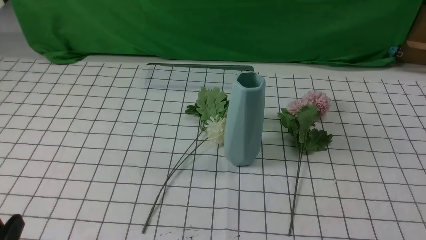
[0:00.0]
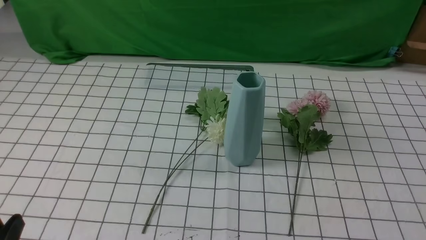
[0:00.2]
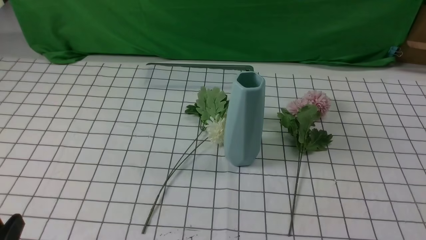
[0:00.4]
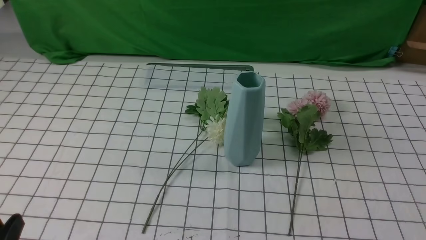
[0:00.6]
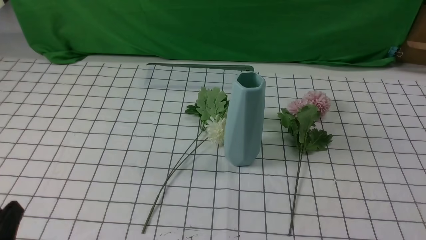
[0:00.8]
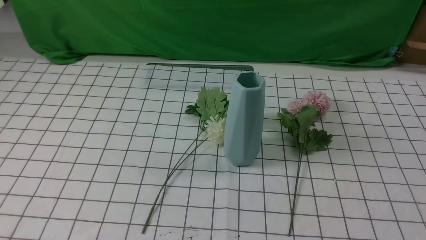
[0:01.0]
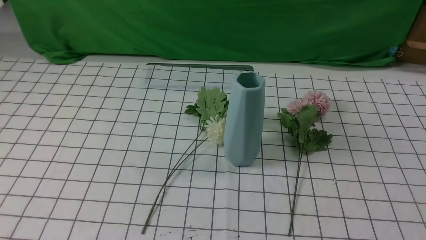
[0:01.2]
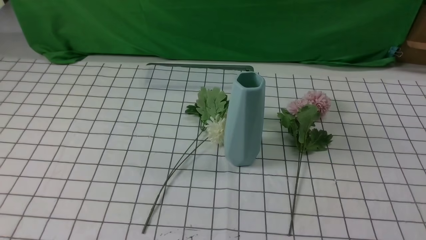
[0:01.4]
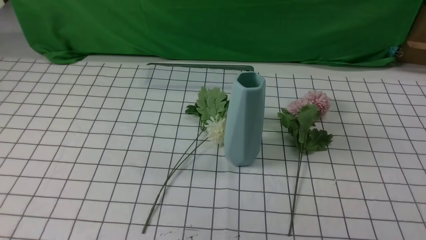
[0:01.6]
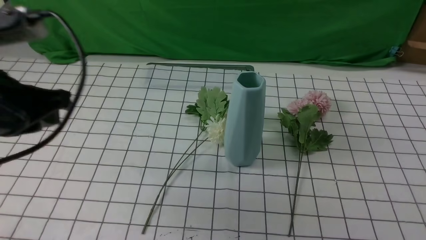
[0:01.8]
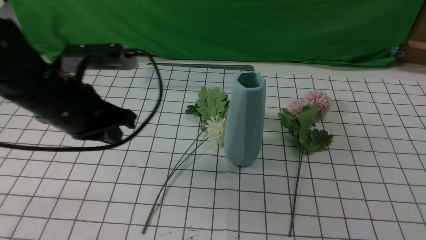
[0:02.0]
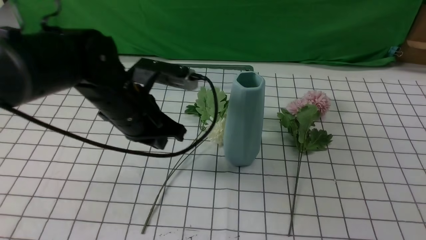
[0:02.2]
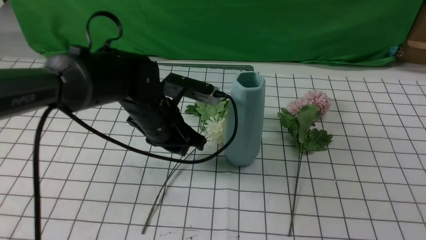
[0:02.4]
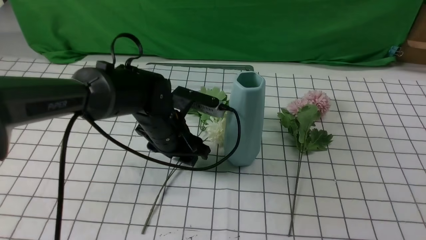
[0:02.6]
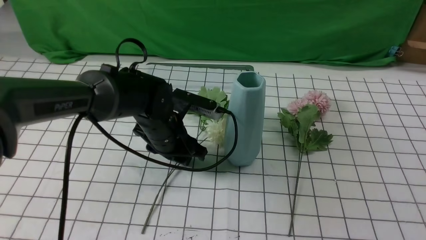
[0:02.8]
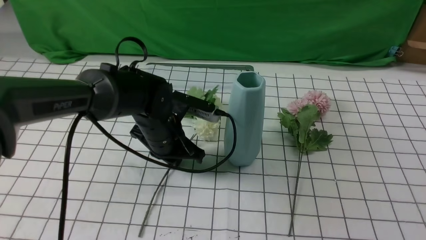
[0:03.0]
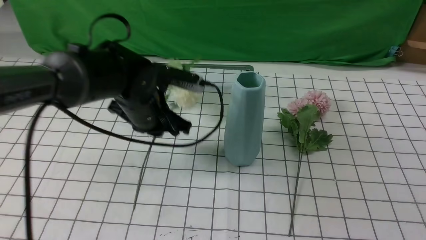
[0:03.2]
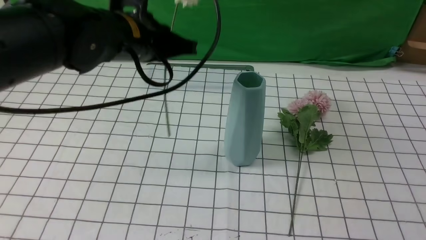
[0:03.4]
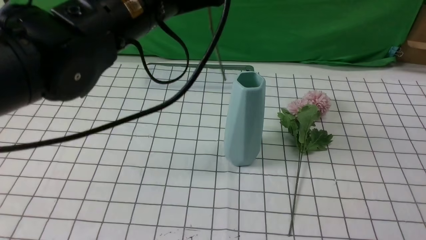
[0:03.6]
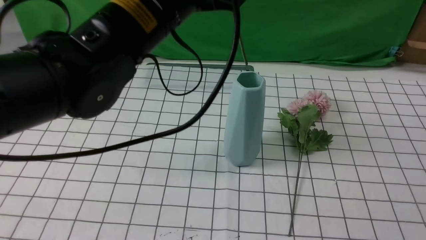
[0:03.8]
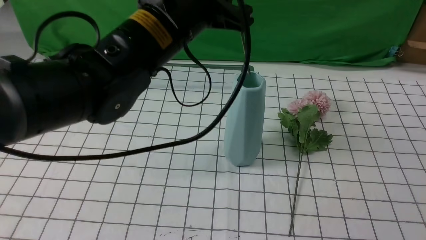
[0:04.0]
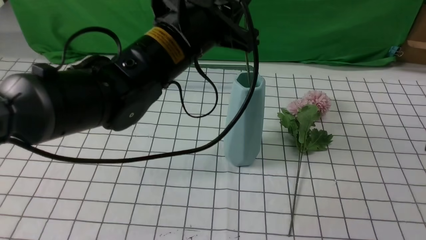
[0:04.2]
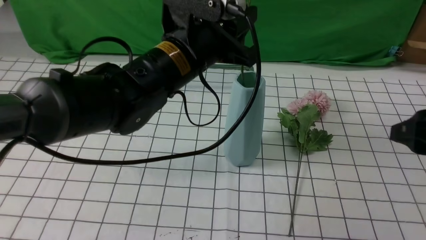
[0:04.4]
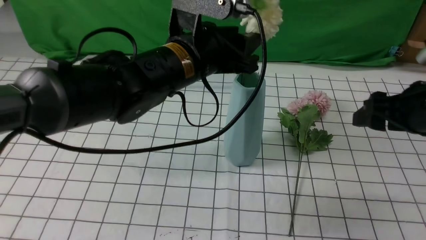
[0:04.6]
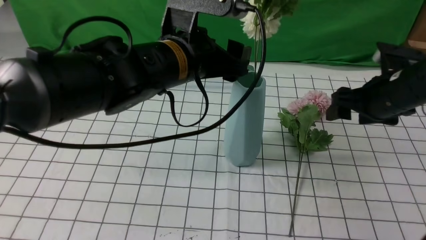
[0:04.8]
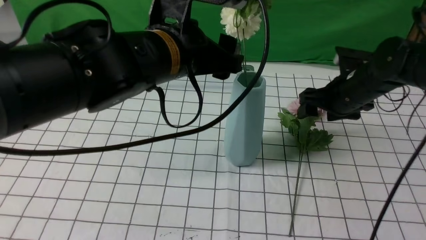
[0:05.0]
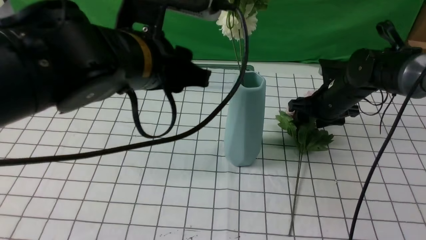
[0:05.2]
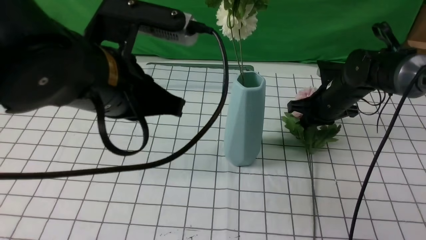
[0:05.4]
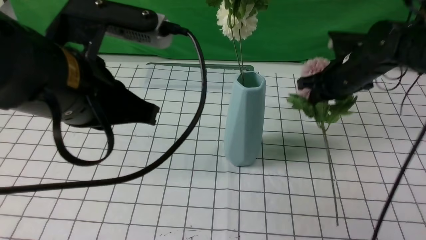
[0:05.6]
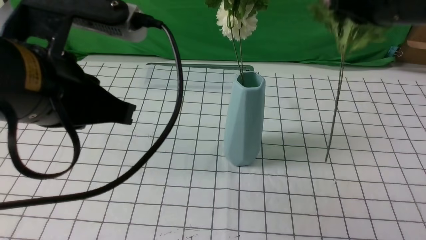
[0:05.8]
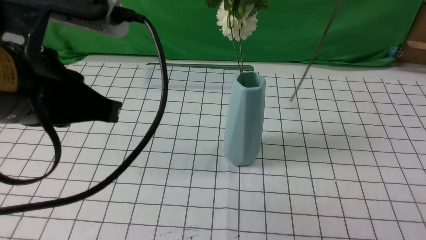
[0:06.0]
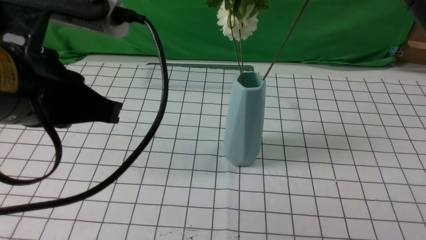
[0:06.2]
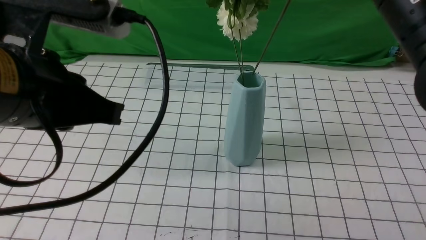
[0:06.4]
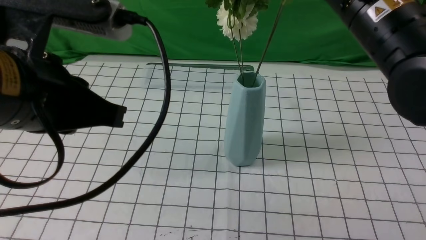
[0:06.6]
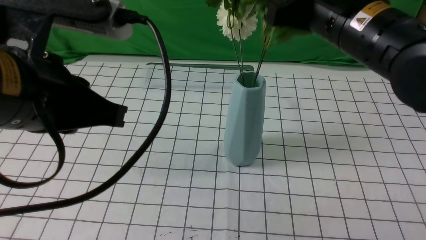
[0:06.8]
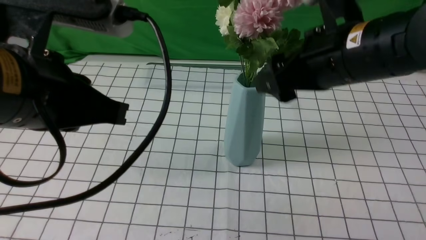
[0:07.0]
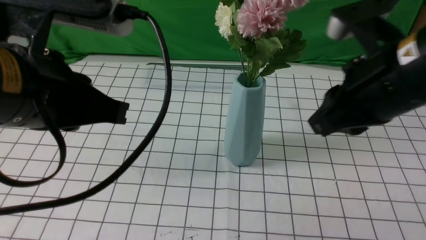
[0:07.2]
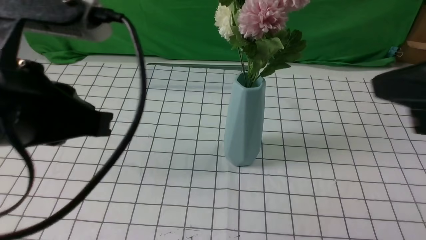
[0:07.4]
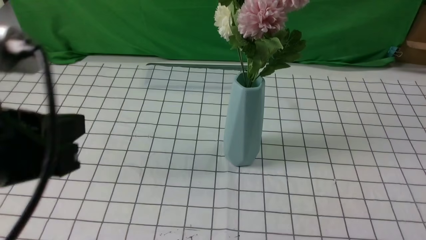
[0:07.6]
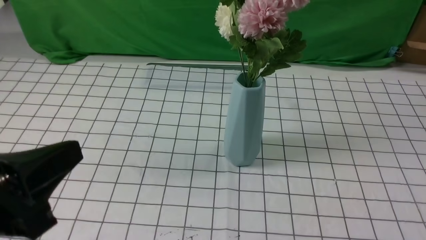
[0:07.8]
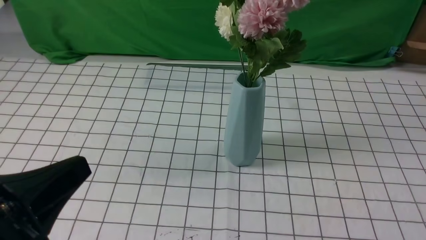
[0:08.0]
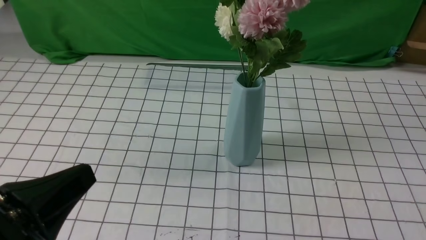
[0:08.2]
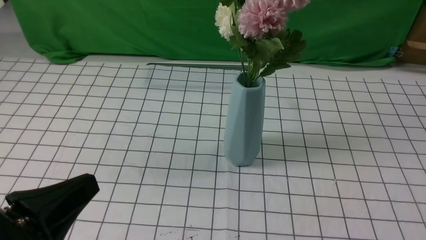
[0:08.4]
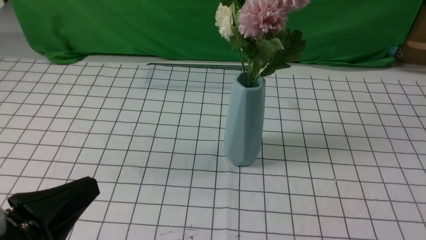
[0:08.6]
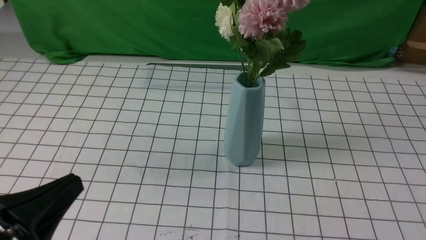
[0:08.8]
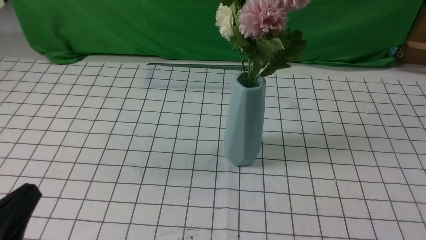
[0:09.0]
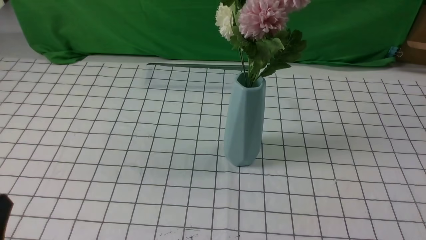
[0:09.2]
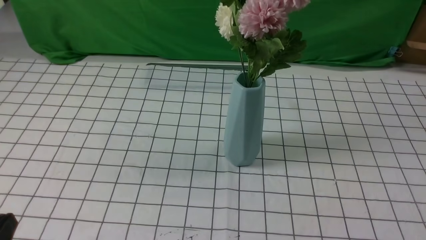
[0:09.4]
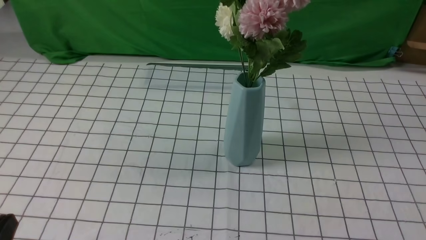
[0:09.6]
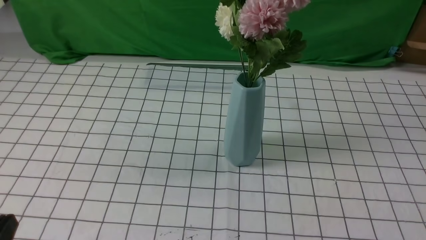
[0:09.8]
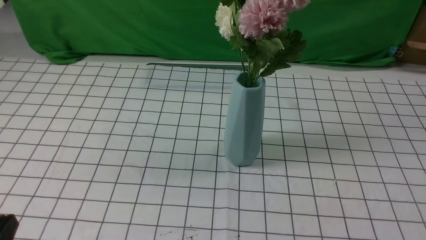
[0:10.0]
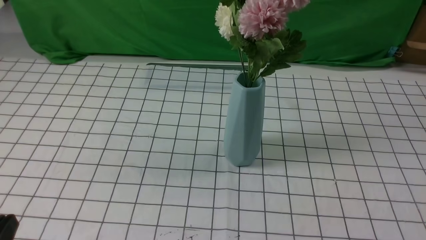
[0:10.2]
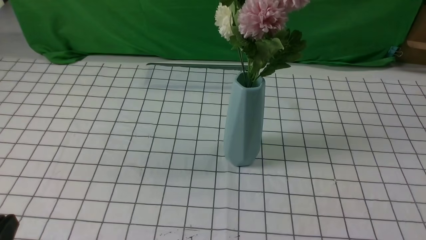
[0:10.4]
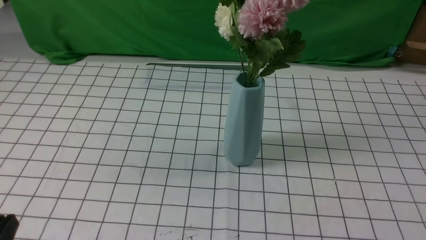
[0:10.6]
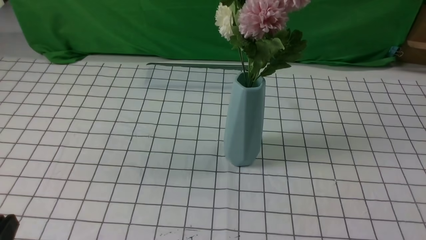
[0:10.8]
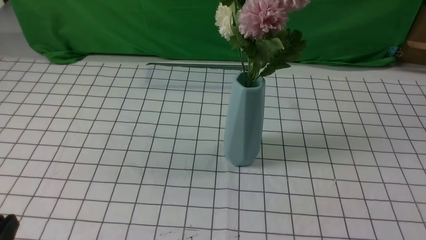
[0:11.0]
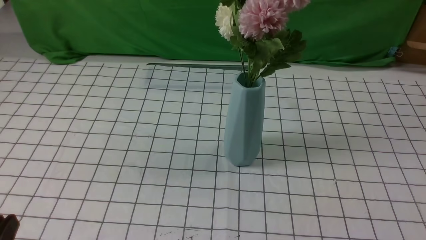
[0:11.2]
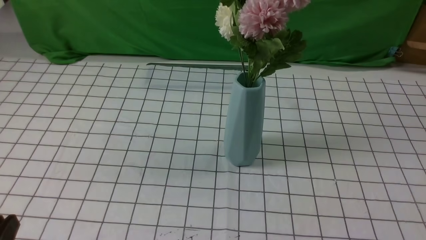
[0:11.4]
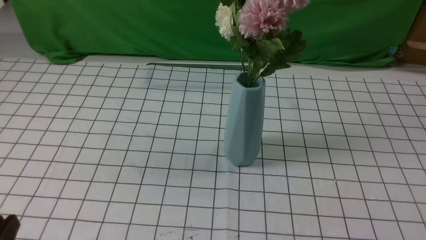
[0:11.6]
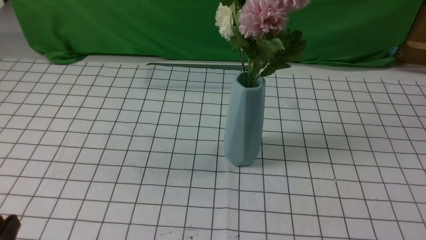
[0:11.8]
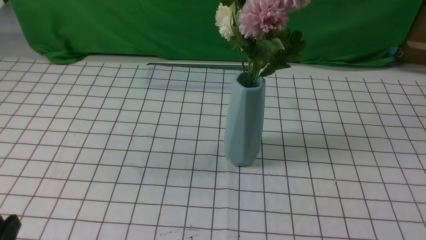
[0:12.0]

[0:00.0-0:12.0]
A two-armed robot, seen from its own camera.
Task of the whole recording: insert the flowers into the vase on the table with the white tablecloth.
Step, 0:00.0 to 0:02.8: use the left arm to grab a bunch of fresh flowers.
Step, 0:03.0 to 0:04.8: use the left arm to insert the flowers into the vase.
Step, 0:05.2 to 0:05.4: use the right arm to grab a bunch of fresh flowers.
Step, 0:05.6 to 0:07.0: use the right arm to insert the flowers into the vase.
0:01.6 to 0:03.0: The right gripper heads upward and forward, covering about 10 cm; the left gripper travels forward, downward and to the right by roughly 30 cm, and opens, then closes once more.
0:03.0 to 0:04.4: The left gripper moves upward, roughly 15 cm, while the right gripper goes approximately 10 cm forward.
0:04.4 to 0:06.0: The left gripper moves backward, to the left and upward, some 20 cm, and closes up; the right gripper moves upward, to the left and forward, roughly 15 cm, and closes up.
0:06.0 to 0:07.6: The right gripper shifts about 20 cm backward, and opens, then closes again. Meanwhile the left gripper shifts roughly 5 cm backward.
0:07.6 to 0:09.0: The left gripper shifts about 15 cm downward, to the left and backward.
0:09.0 to 0:10.4: The grippers make only small movements.
